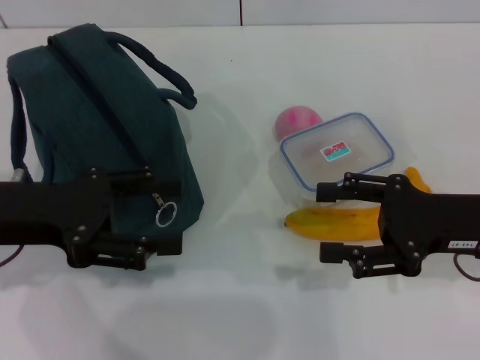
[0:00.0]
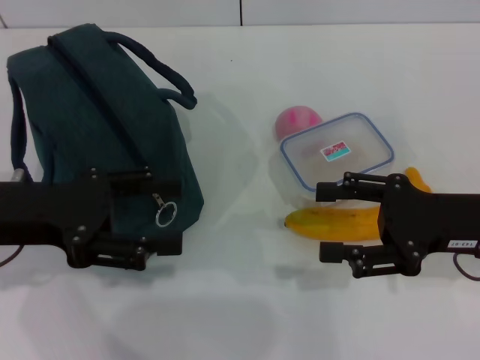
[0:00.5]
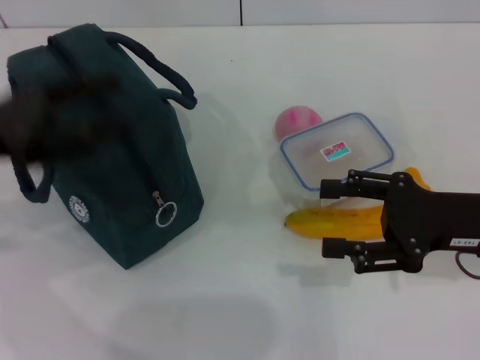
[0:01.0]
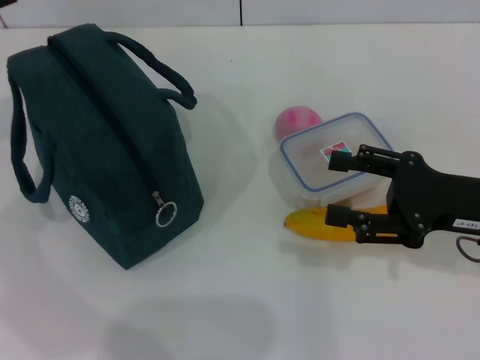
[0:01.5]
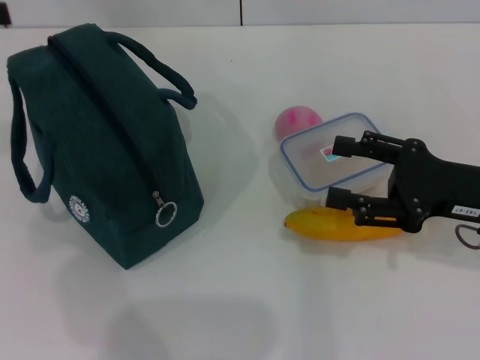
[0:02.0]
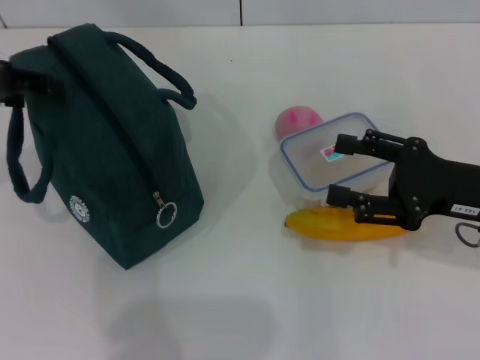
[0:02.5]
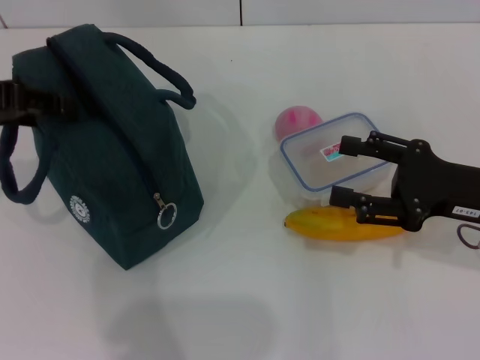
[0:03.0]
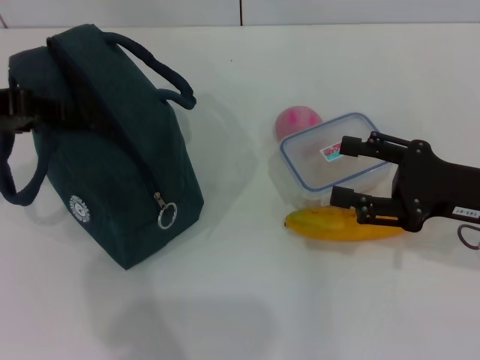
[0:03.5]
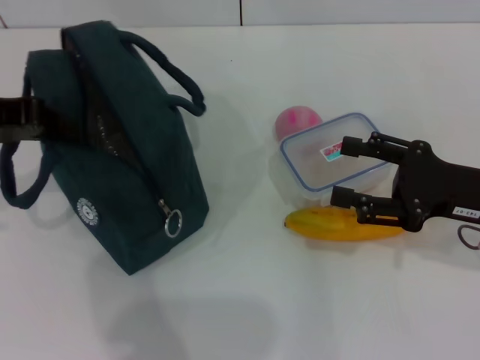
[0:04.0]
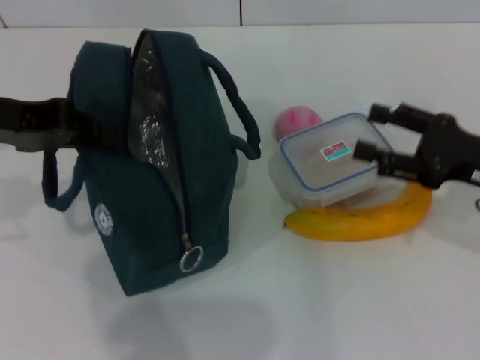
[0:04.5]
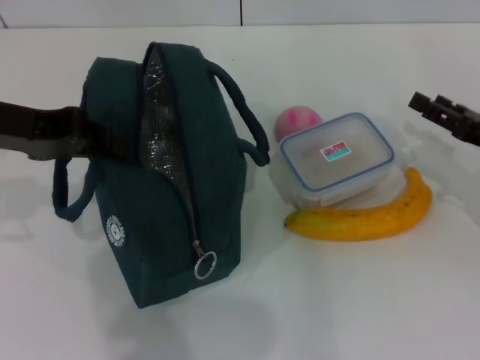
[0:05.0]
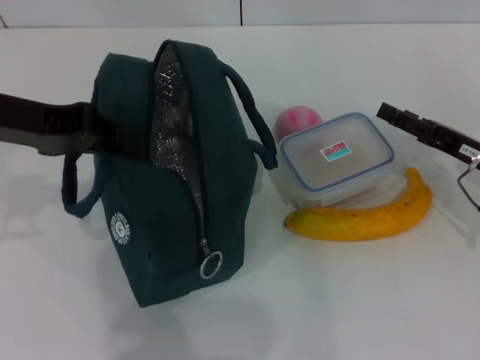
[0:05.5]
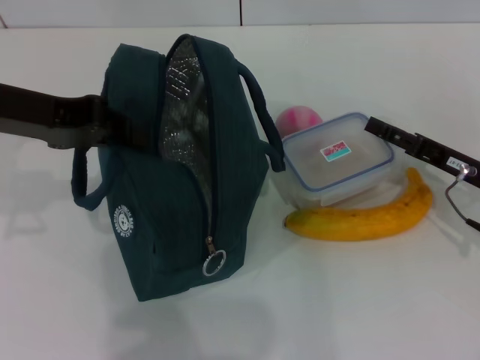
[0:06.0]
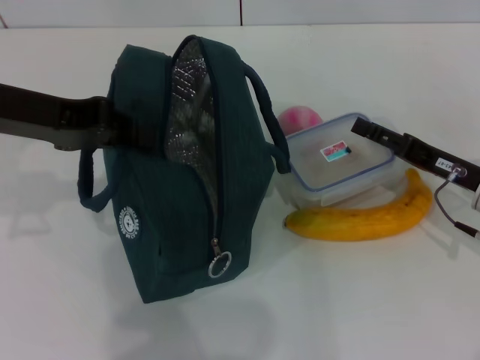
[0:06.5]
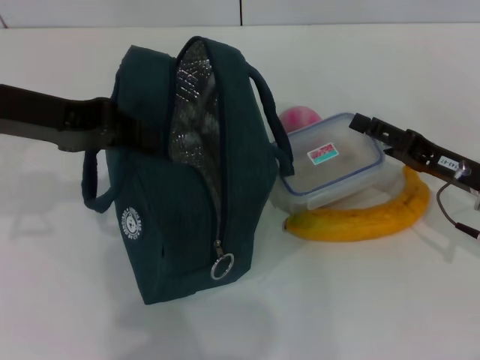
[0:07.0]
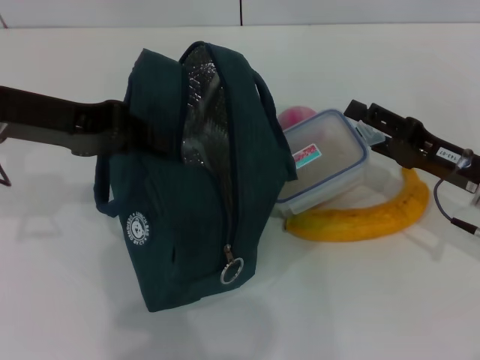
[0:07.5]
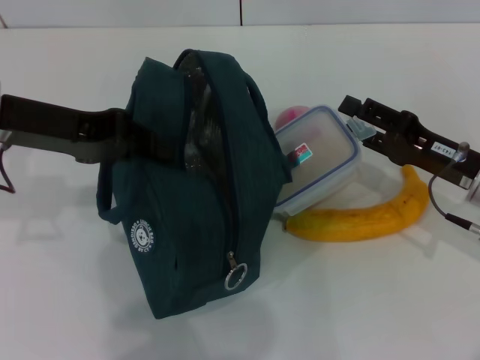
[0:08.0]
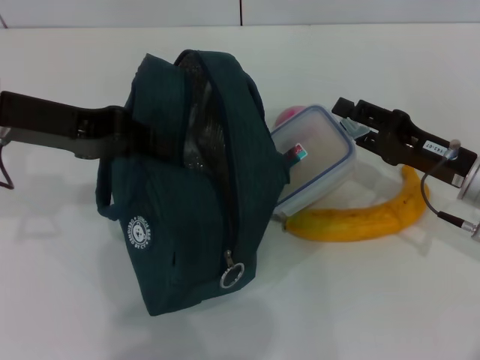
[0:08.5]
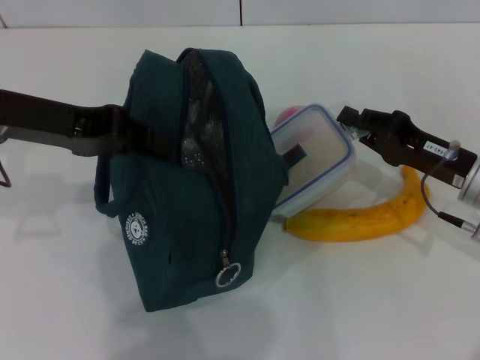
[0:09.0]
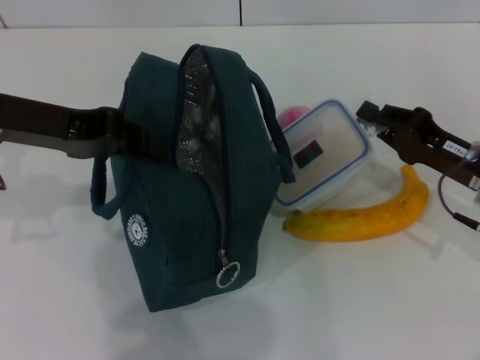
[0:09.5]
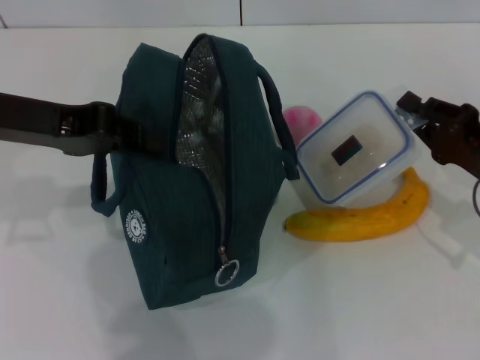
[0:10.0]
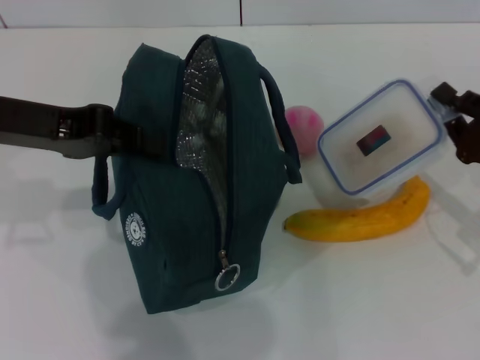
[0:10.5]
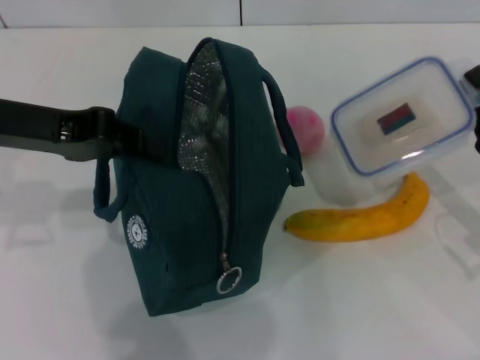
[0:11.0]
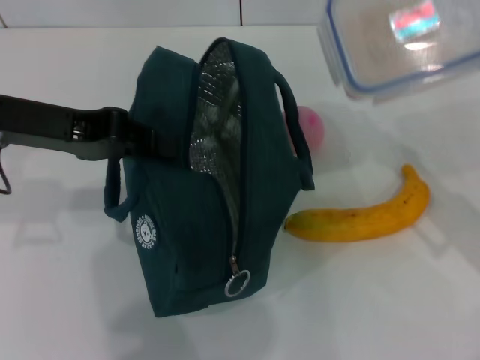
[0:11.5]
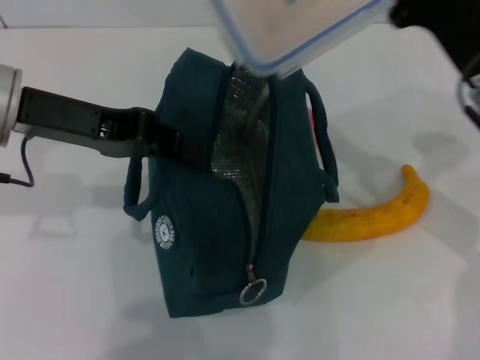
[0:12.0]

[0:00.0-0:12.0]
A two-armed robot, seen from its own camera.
Step, 0:00.0 to 0:04.5: Hold the lunch bag with your left hand.
Step, 0:05.0 to 0:09.0: Pick up the lunch box with your right hand.
0:00.0 to 0:02.0: The left gripper travels upward, to the left and forward by approximately 15 cm.
0:02.0 to 0:04.0: The left gripper travels to the right by some 5 cm, and closes its fingers.
0:04.0 to 0:06.0: The right gripper heads downward, covering about 5 cm.
0:08.0 to 0:10.0: The right gripper closes.
0:10.0 to 0:12.0: The right gripper travels upward and to the left by about 10 cm.

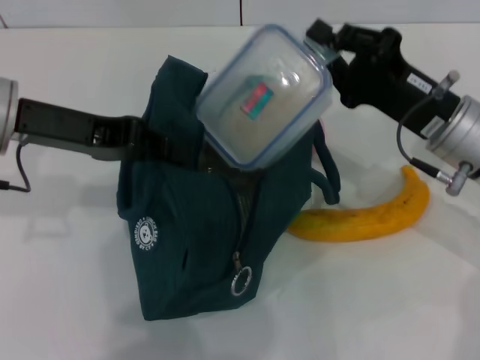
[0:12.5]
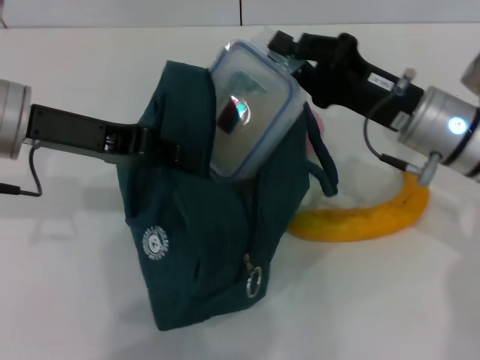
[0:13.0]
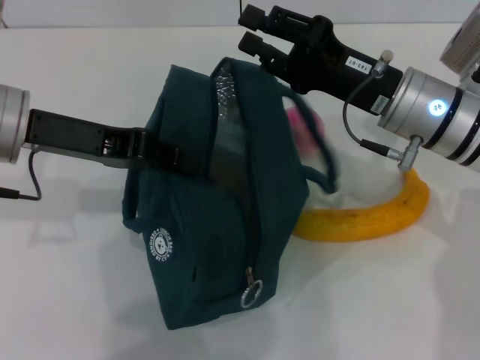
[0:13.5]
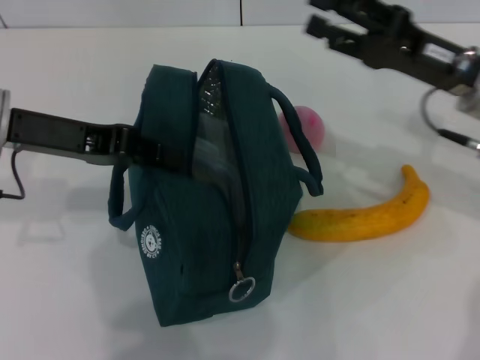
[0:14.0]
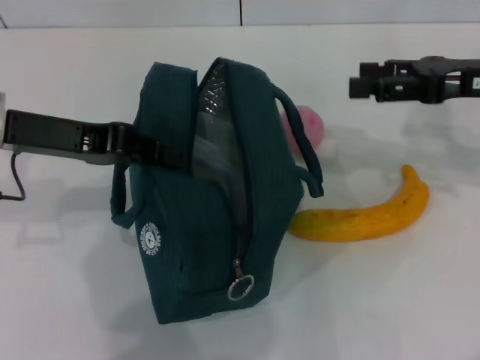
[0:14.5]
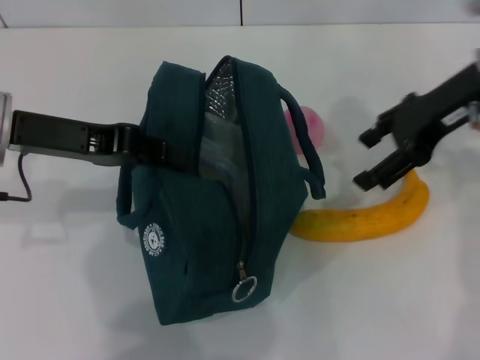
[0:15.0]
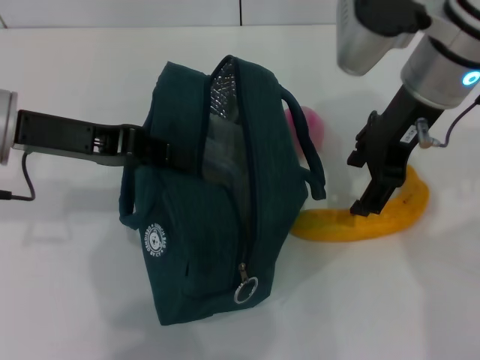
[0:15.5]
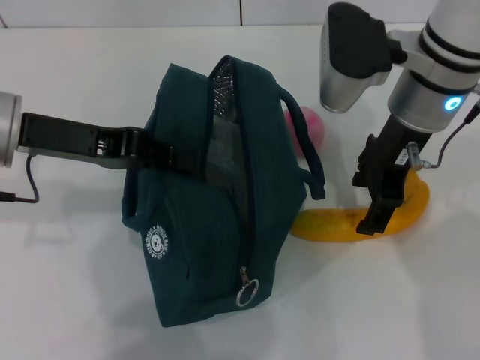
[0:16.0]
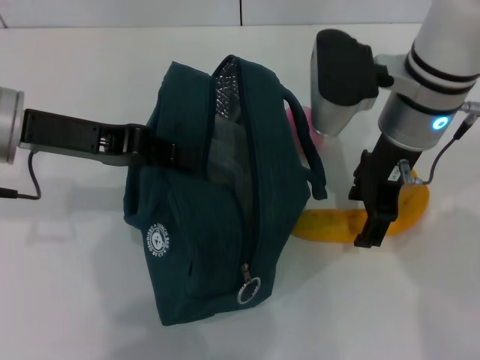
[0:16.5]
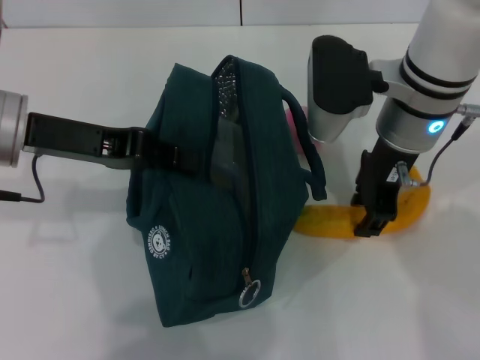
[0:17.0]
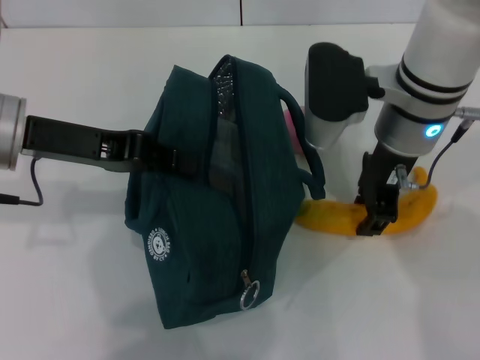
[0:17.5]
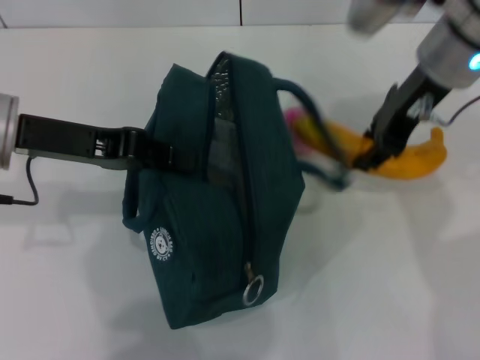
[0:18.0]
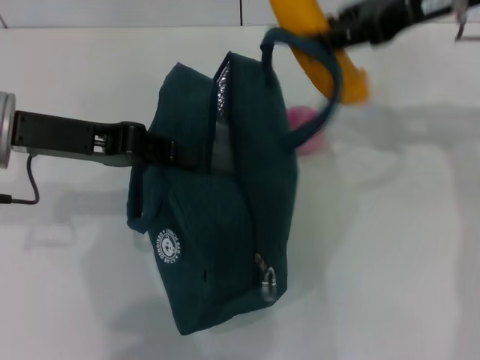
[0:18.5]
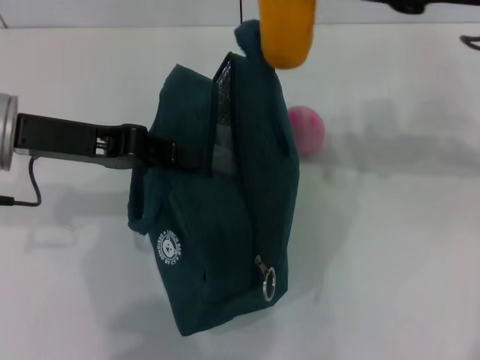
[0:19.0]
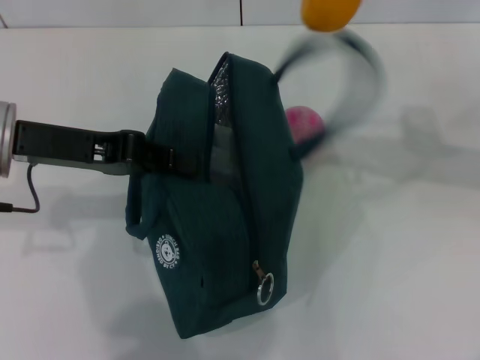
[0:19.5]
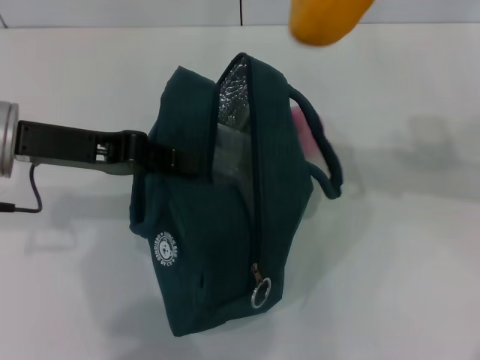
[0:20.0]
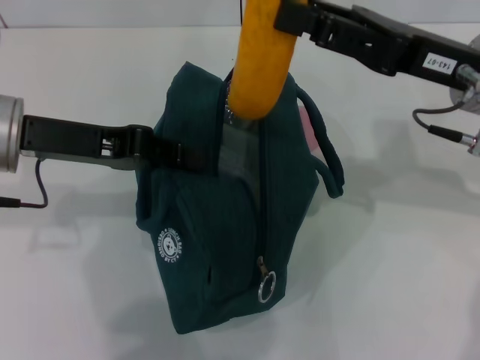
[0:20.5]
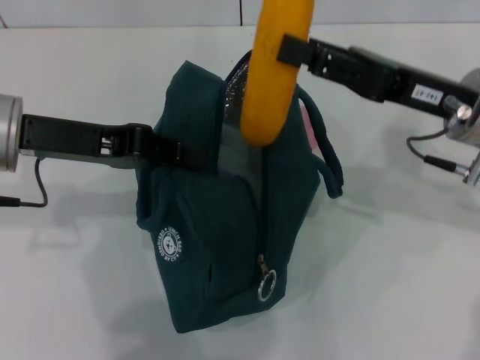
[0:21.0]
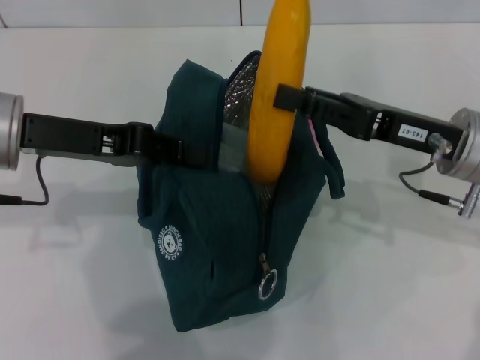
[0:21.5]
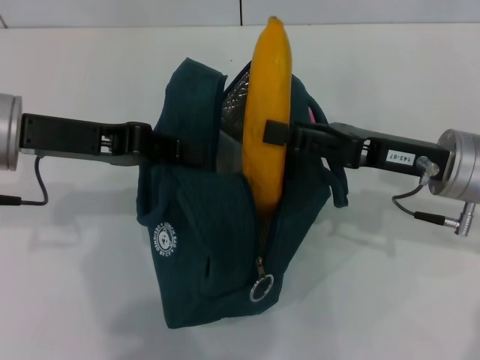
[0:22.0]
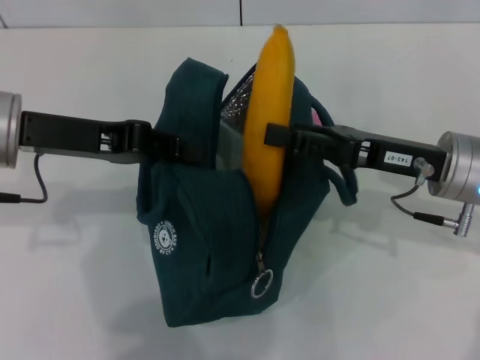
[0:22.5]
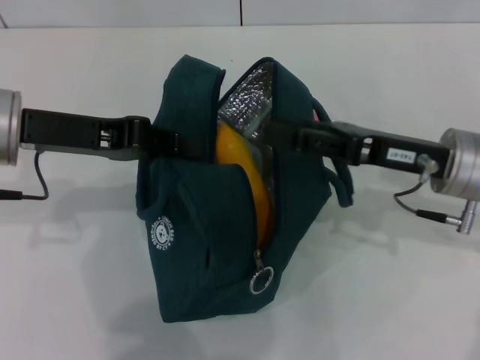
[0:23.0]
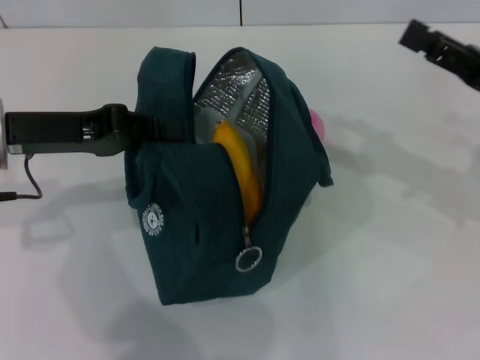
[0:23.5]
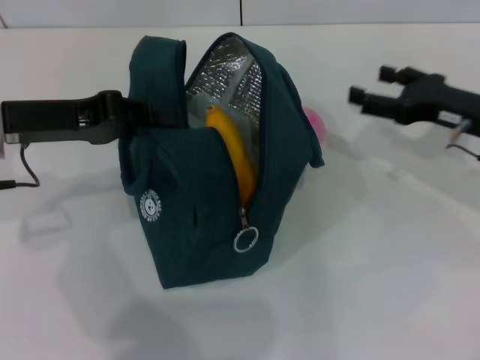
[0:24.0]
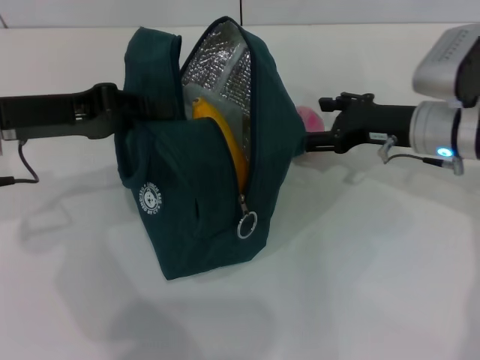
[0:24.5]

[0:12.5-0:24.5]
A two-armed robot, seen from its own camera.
Step, 0:14.0 to 0:17.0: Take the banana with your right hand.
Step, 0:17.5 to 0:23.0: Put the banana into the lunch bag with your right hand.
0:12.5 to 0:14.5: The right gripper travels to the right and upward by roughly 10 cm, and opens its fingers.
0:14.5 to 0:16.5: The right gripper heads to the left, covering approximately 15 cm.
0:16.5 to 0:18.5: The right gripper moves upward and to the right, about 15 cm, and closes up.
0:18.5 to 0:20.5: The right gripper moves downward, approximately 10 cm.
0:20.5 to 0:22.5: The right gripper travels downward by some 10 cm.
0:22.5 to 0:24.5: The right gripper travels forward by about 5 cm, goes to the right and returns, some 10 cm each way, and opens its fingers.

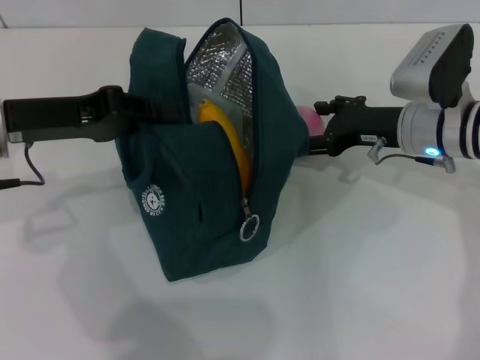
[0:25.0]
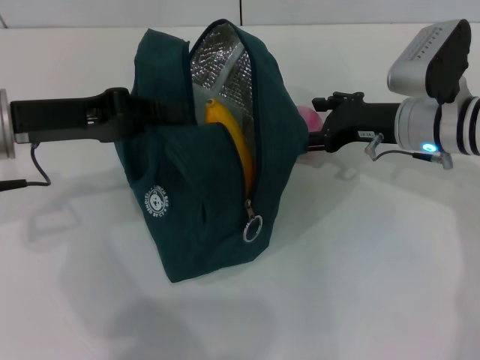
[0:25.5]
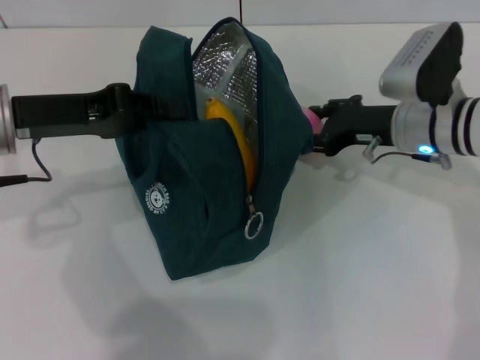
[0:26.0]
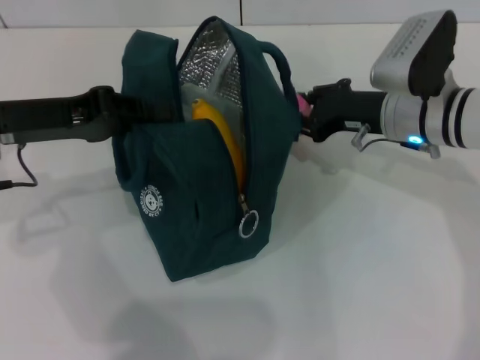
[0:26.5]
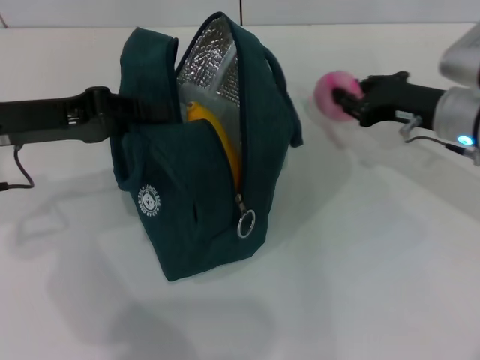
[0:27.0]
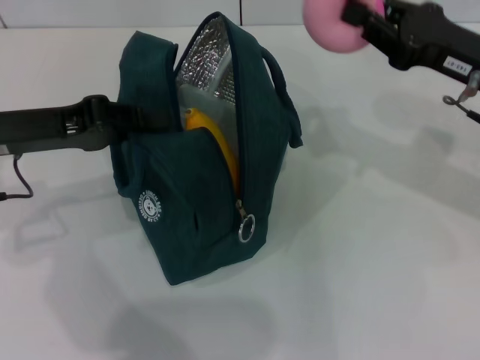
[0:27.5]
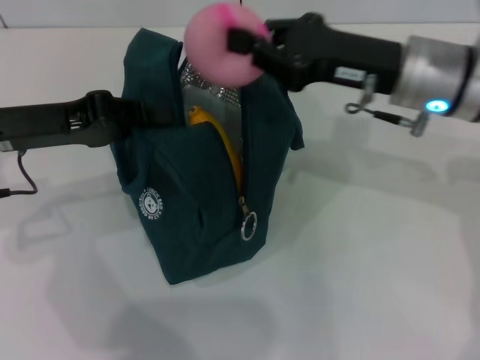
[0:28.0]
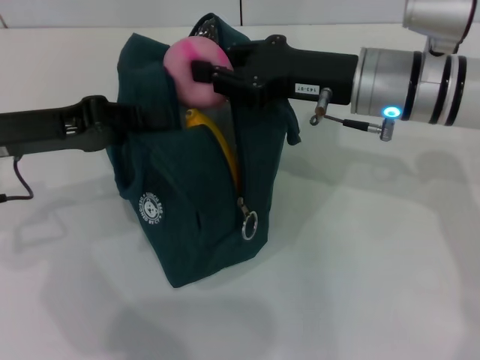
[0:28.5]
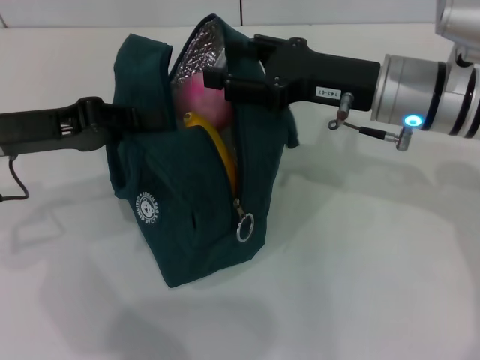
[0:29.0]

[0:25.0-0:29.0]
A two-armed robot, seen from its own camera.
0:25.0 to 0:27.0: The right gripper closes its fingers.
0:27.0 to 0:29.0: The right gripper moves to the left and upward, some 10 cm.
